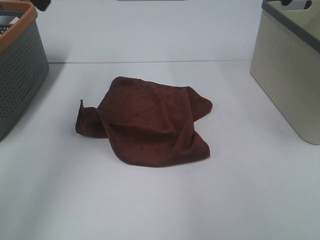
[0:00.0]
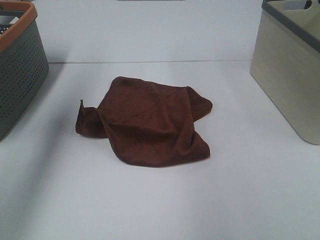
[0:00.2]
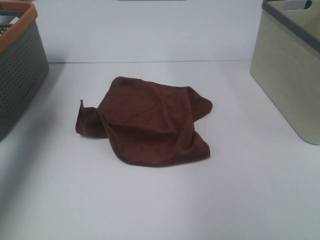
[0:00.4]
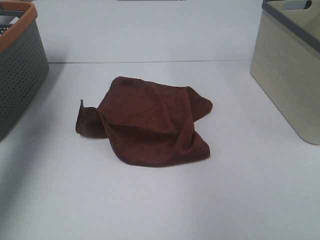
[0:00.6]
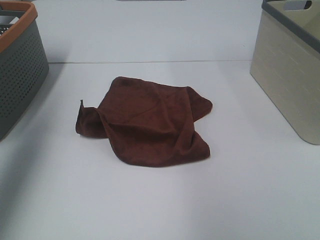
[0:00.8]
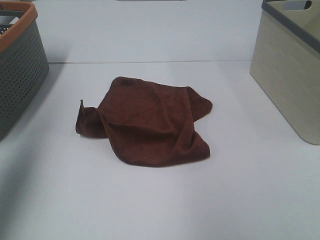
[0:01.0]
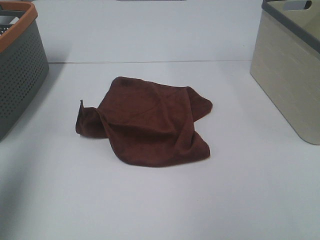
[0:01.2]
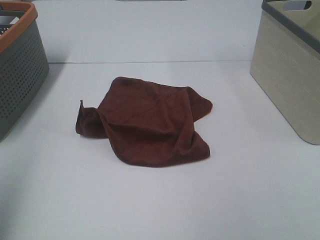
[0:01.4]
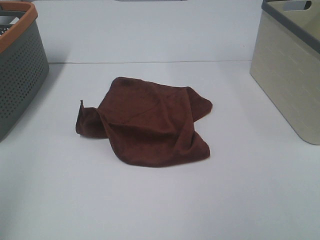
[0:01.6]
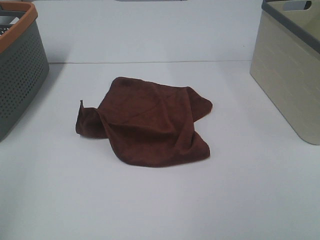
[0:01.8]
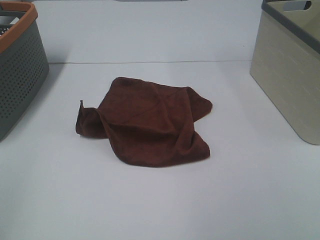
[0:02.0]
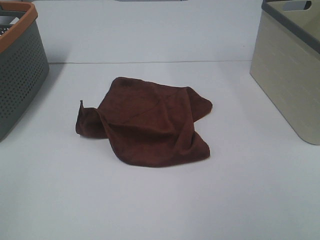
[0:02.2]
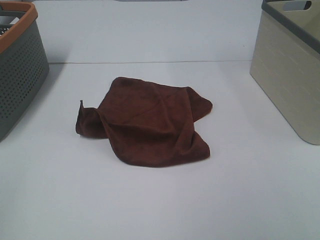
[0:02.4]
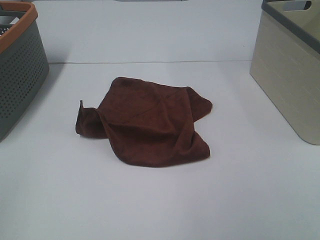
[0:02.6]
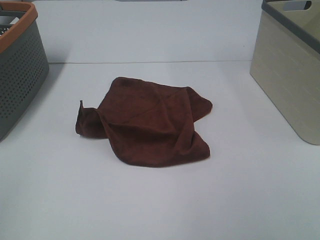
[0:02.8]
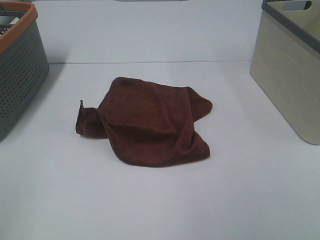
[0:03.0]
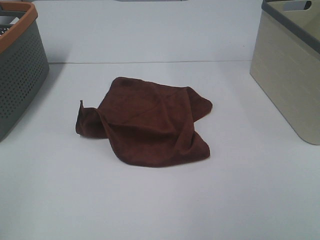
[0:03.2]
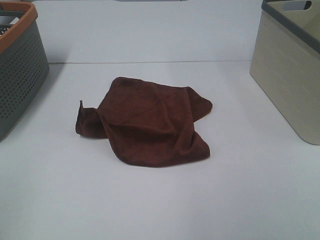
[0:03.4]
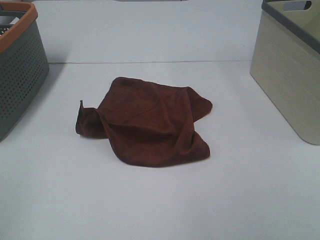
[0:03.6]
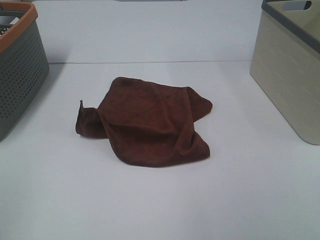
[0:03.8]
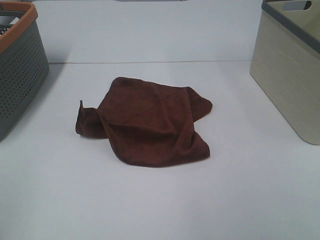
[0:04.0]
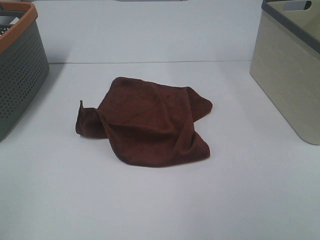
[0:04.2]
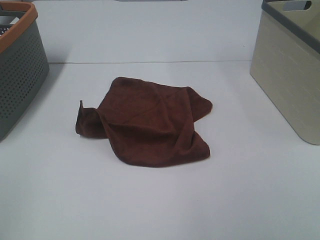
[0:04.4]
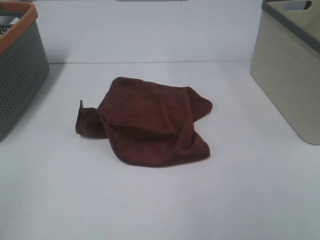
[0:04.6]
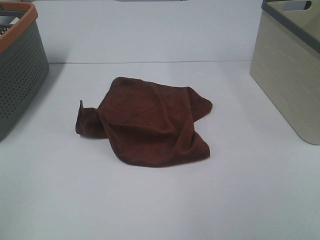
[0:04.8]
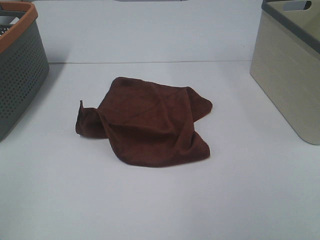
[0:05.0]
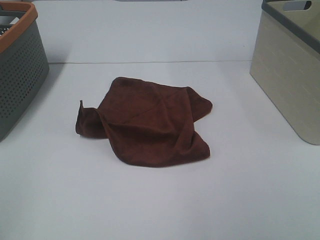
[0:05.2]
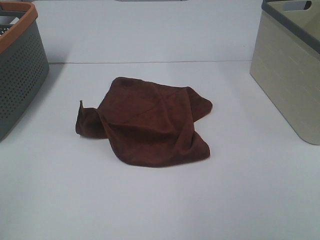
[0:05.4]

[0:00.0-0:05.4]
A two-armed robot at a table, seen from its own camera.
Task of the whole recording: Remove the towel and place it.
0:00.0 to 0:01.4: The left gripper heads backward and to the left, covering about 25 cm.
0:01.4 to 0:02.8: The left gripper travels backward by approximately 10 cm.
0:04.0 to 0:05.4: Neither gripper changes place.

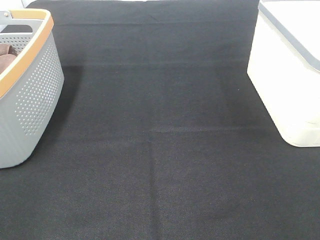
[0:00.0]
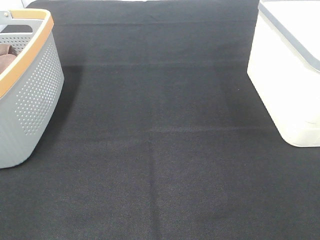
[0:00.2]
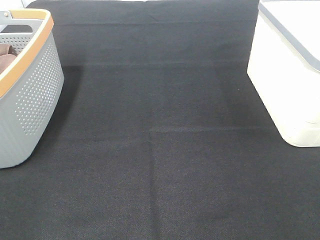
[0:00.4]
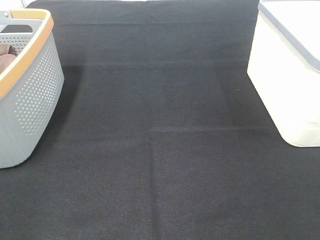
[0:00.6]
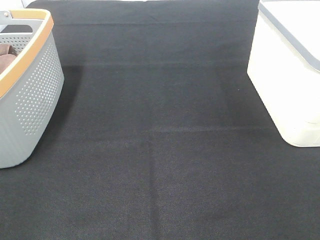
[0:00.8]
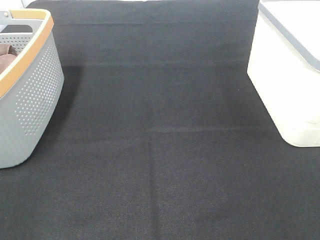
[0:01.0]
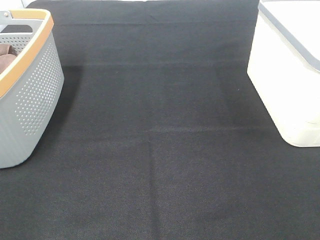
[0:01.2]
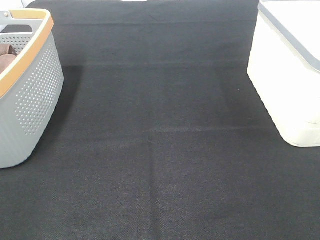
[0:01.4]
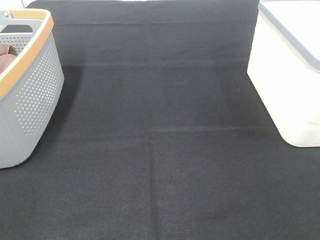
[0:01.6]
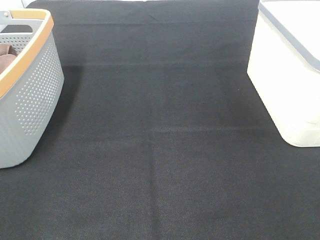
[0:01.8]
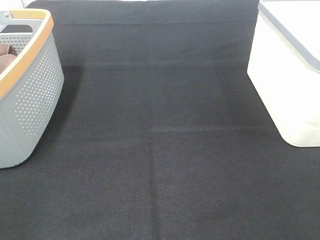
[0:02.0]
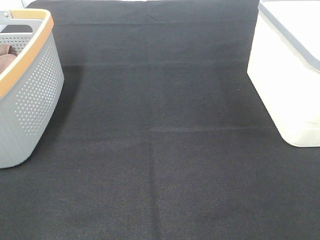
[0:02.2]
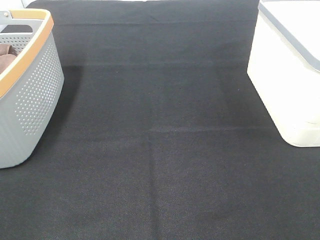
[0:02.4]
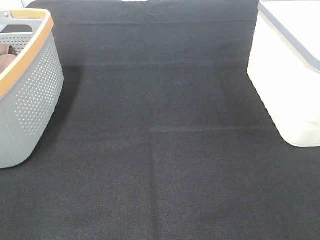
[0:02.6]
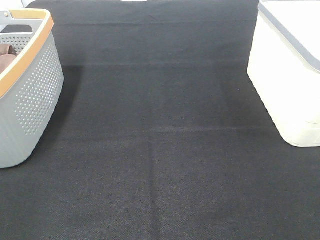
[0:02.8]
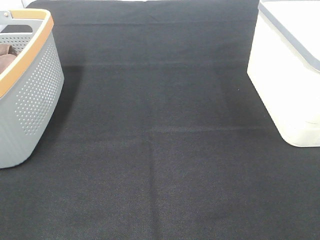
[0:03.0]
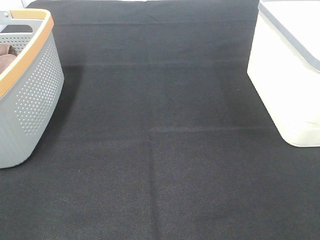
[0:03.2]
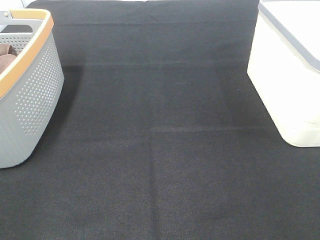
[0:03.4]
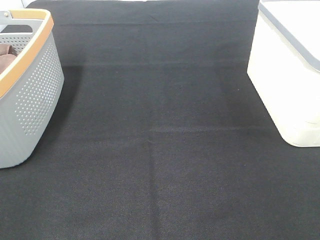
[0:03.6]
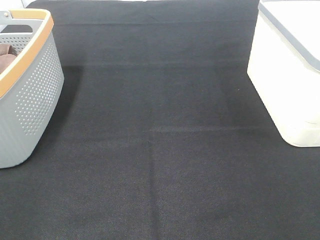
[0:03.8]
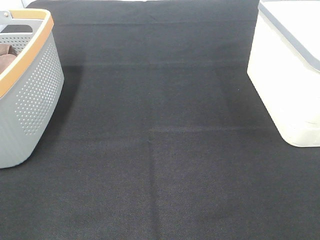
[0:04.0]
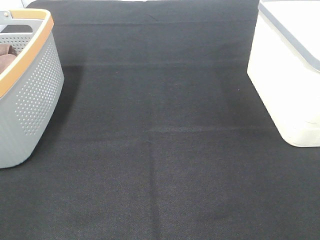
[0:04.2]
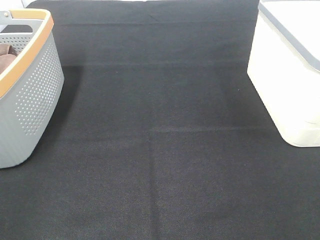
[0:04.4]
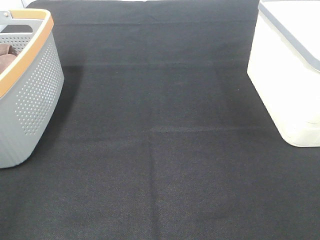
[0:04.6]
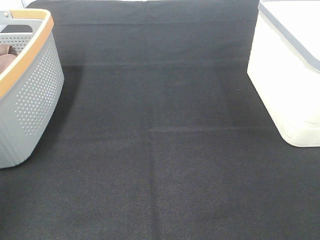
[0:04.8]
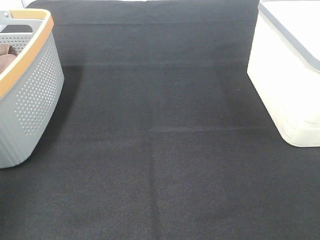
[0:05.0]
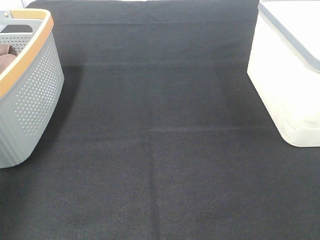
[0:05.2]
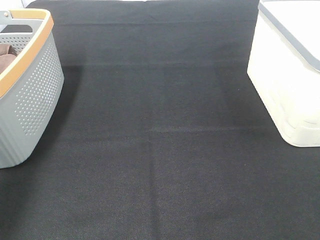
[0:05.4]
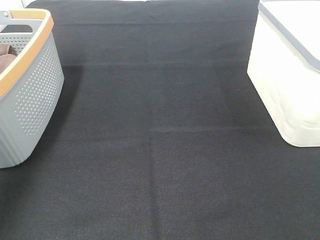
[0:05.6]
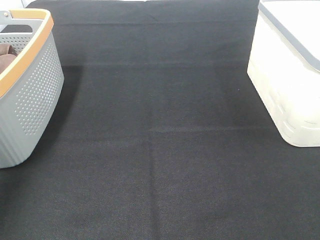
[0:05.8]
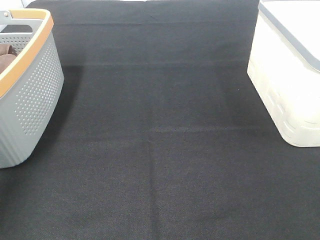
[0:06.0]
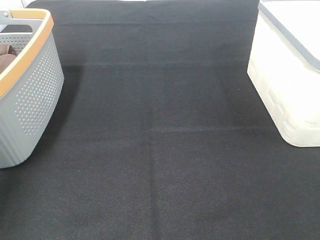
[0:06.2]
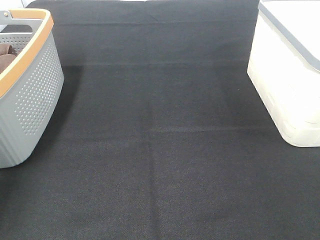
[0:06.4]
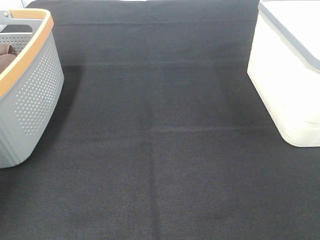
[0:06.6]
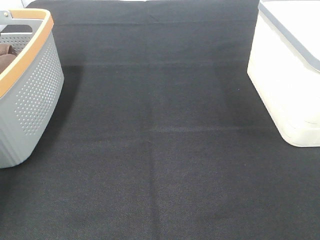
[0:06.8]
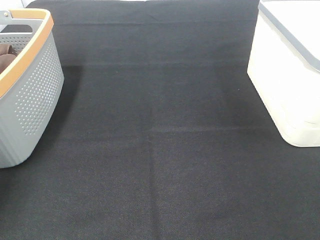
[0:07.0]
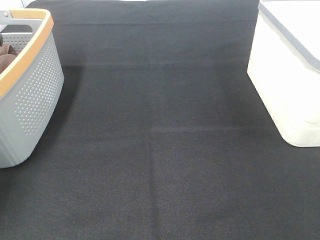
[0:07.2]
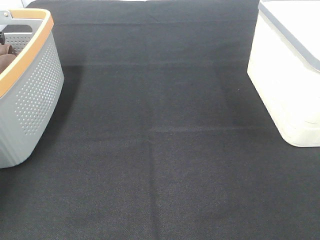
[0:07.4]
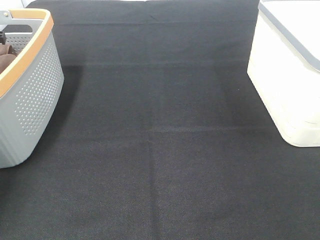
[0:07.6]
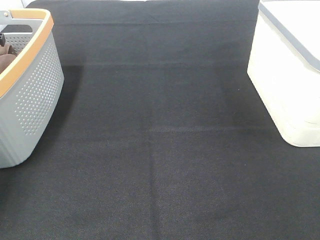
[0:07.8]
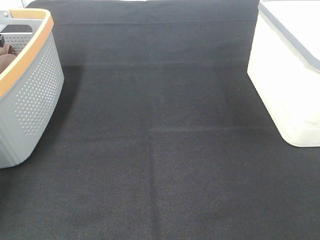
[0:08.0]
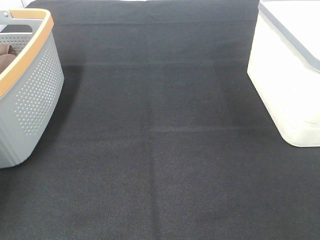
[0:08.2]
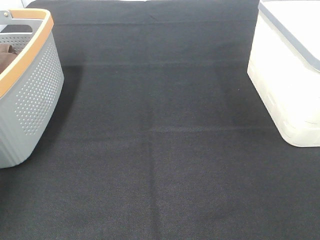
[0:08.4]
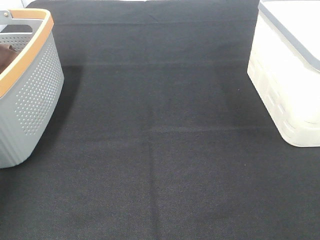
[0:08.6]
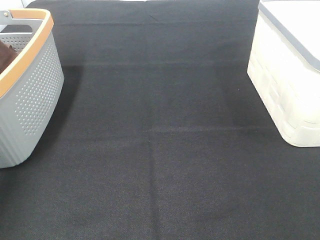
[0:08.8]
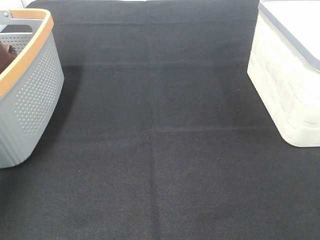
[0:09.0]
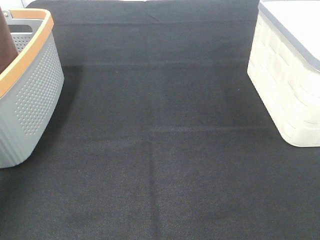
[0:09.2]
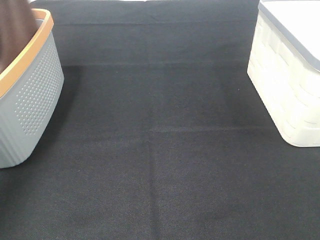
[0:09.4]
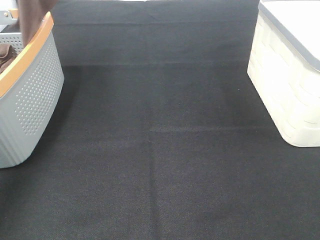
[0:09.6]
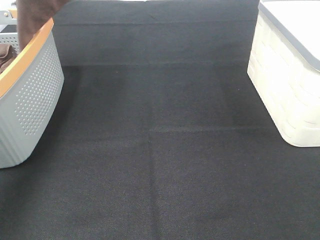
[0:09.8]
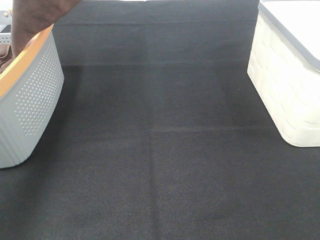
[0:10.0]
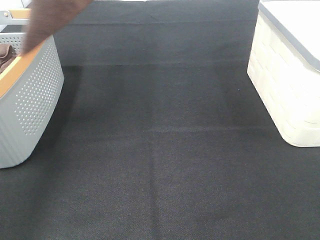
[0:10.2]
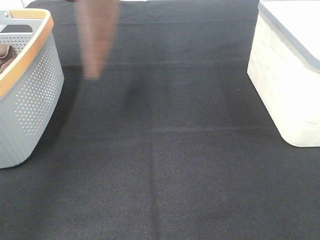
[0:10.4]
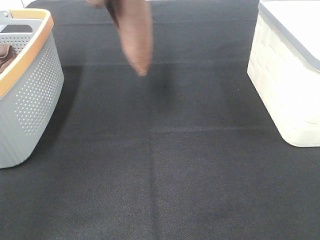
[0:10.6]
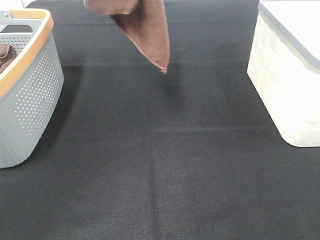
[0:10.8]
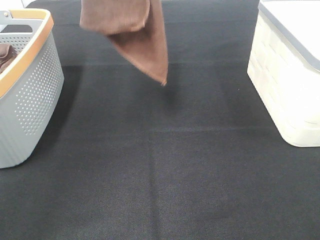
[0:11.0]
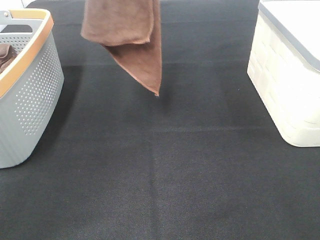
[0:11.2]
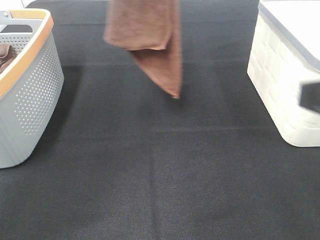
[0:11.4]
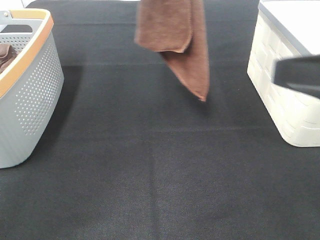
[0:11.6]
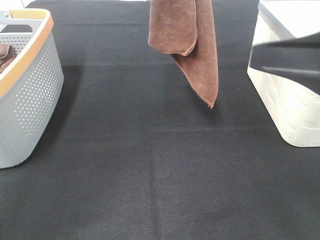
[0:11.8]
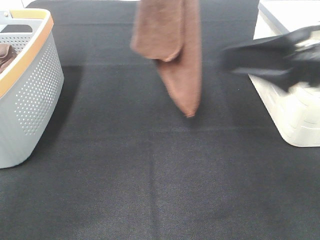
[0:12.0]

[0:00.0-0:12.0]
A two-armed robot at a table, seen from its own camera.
Task of the whole recording: Remove the towel and place it.
0:00.0 to 0:03.0: The two grippers keep their place.
0:04.4 to 0:06.0: The left gripper goes roughly 35 cm forward.
0:09.0 to 0:10.4: The left gripper travels to the right and upward by approximately 20 cm.
0:10.4 to 0:12.0: The right gripper travels forward and to the left by some 20 cm; the left gripper shifts some 10 cm to the right and downward.

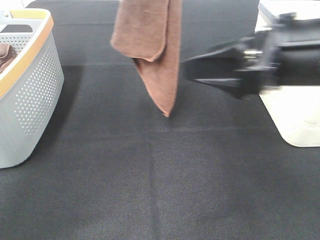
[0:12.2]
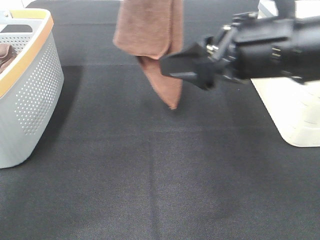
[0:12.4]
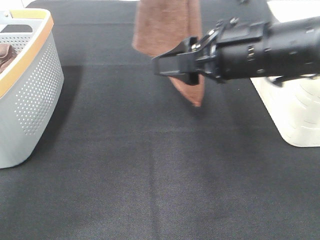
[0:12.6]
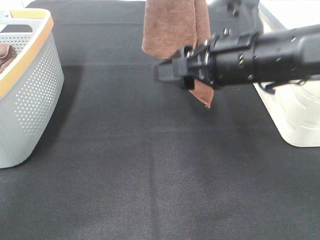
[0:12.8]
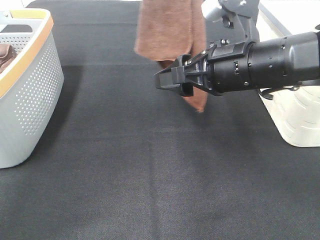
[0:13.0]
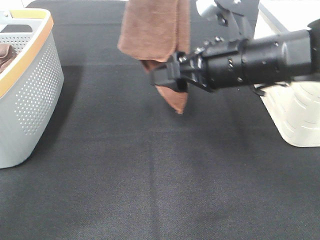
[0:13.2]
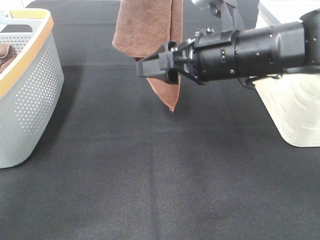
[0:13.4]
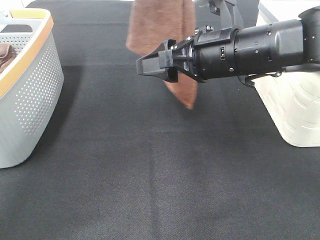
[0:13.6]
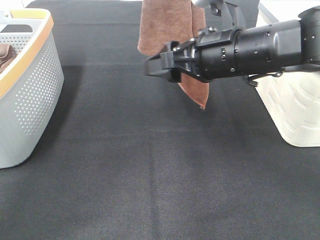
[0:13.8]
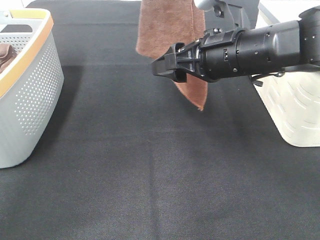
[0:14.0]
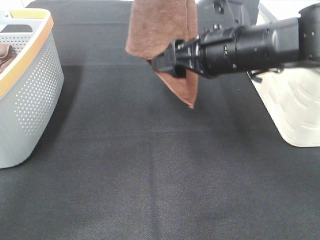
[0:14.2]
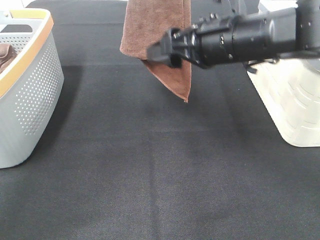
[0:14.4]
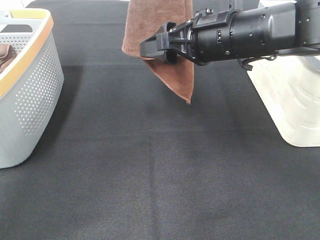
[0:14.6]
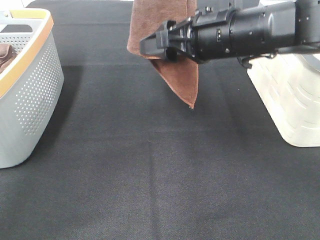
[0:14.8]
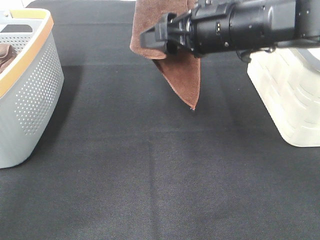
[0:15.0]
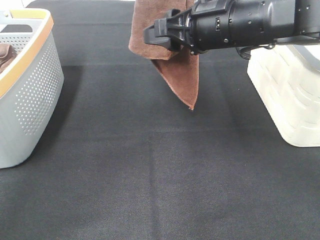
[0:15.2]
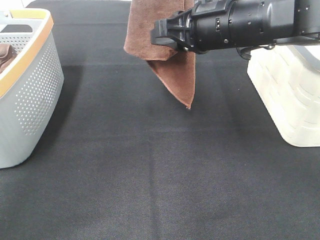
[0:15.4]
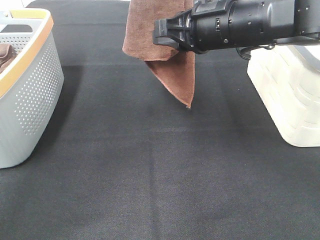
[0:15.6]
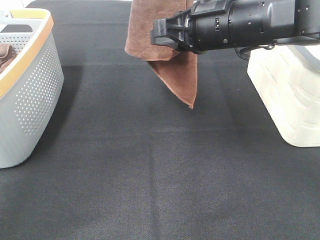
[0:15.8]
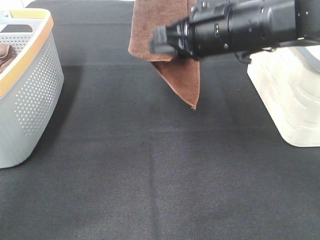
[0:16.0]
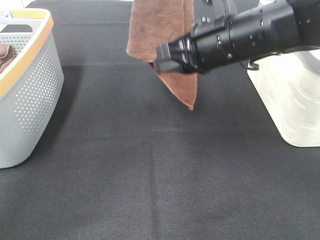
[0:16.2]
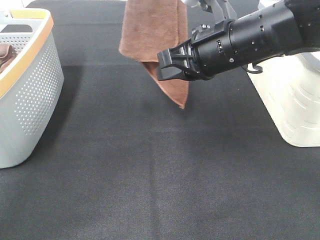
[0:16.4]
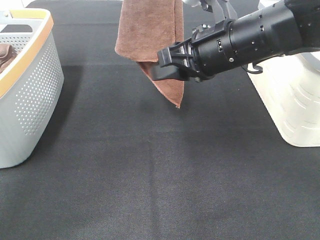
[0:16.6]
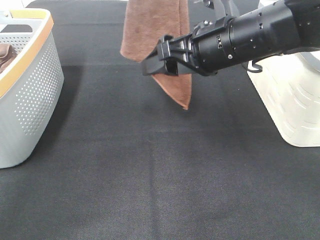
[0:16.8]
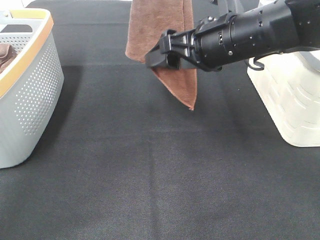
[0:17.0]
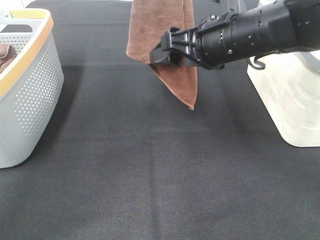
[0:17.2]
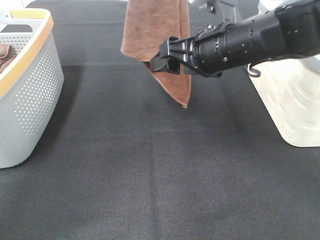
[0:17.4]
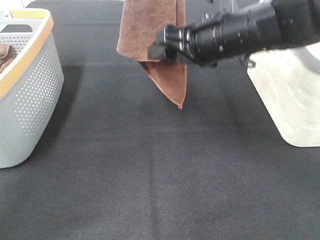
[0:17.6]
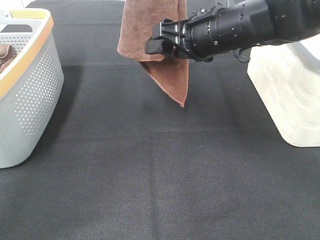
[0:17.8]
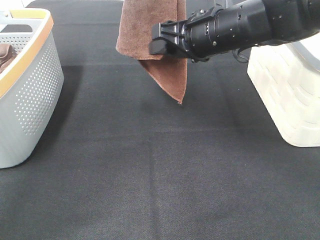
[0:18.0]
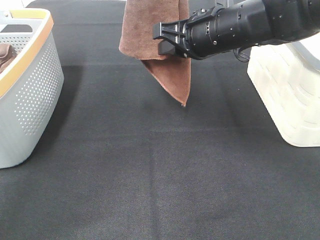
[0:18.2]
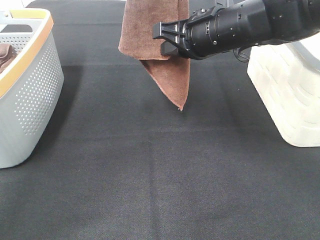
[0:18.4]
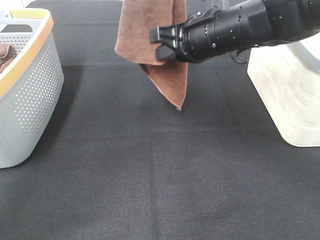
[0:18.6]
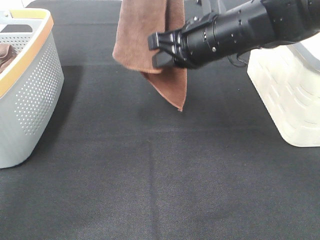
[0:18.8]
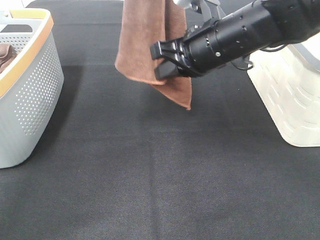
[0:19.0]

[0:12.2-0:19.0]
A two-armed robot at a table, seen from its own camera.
Task of the whole recording: Remove the towel and place it.
Step, 0:12.2 to 0:16.4: Right hand: grab a corner of the brown towel and straighten it.
0:12.2 to 0:13.6: The right gripper is displaced forward and to the left by approximately 10 cm.
0:13.6 to 0:15.0: The grippers stay close to where they were, moving slightly.
0:15.0 to 0:16.2: The right gripper closes.
0:16.2 to 0:17.6: The right gripper opens its fingers.
0:17.6 to 0:19.0: The right gripper closes.
